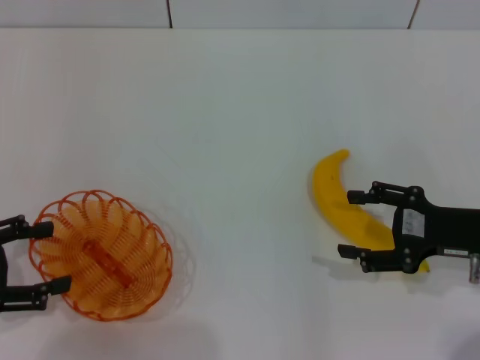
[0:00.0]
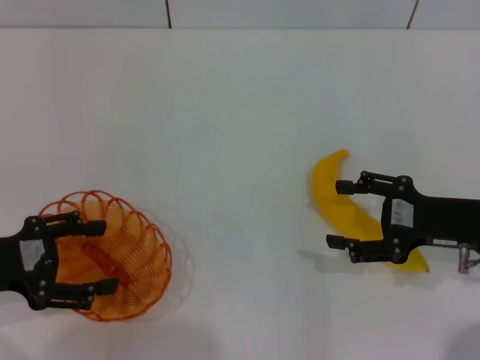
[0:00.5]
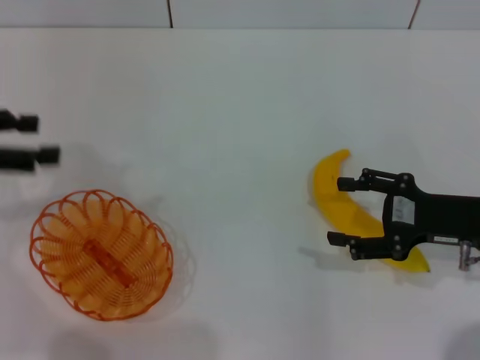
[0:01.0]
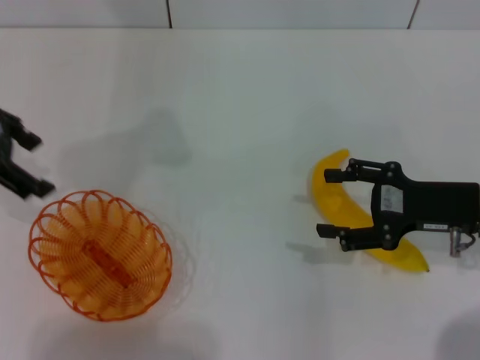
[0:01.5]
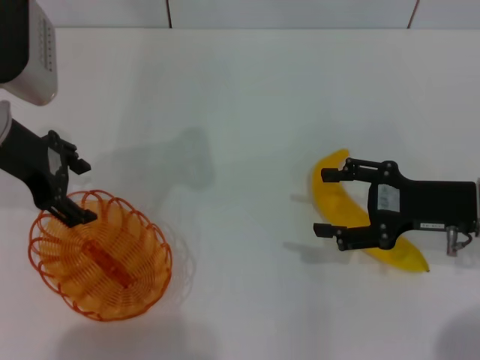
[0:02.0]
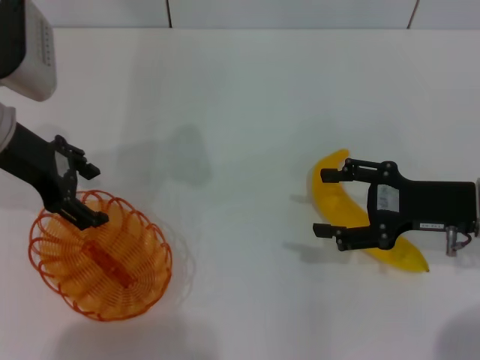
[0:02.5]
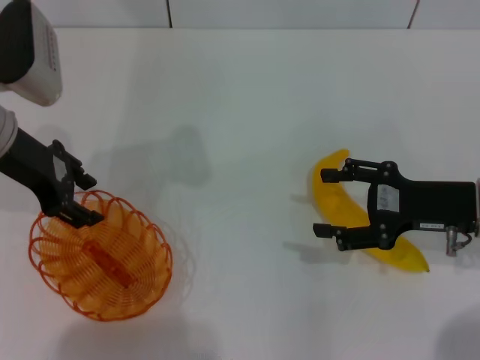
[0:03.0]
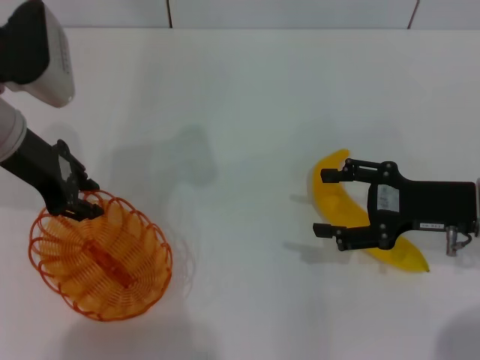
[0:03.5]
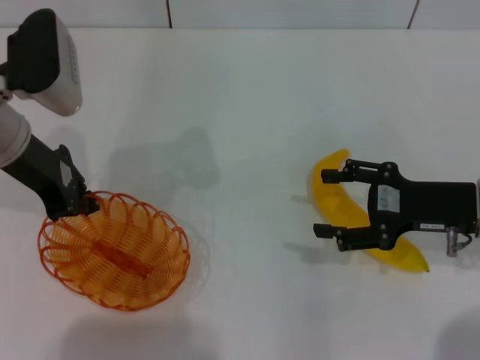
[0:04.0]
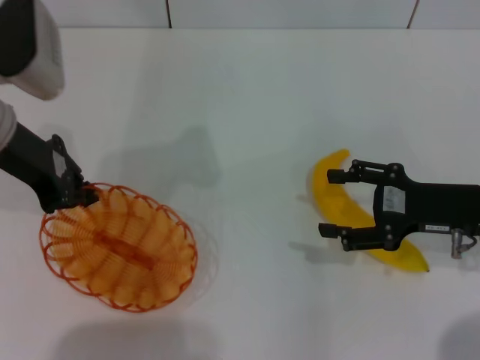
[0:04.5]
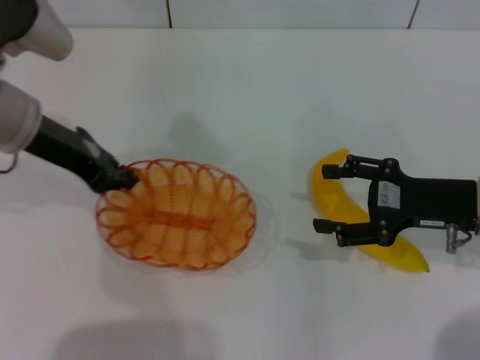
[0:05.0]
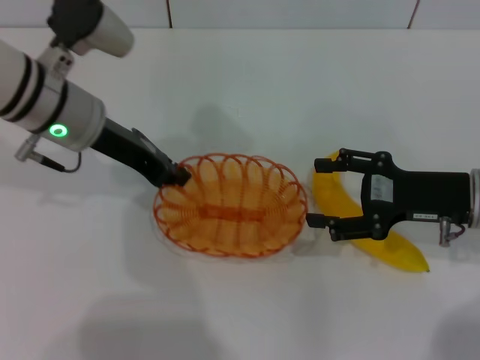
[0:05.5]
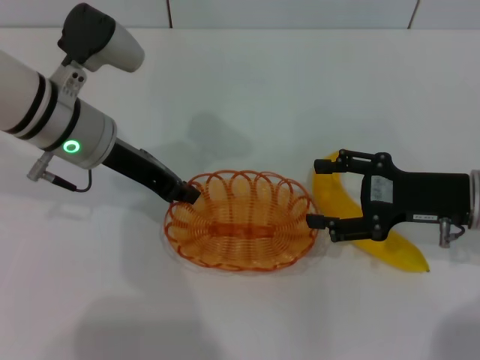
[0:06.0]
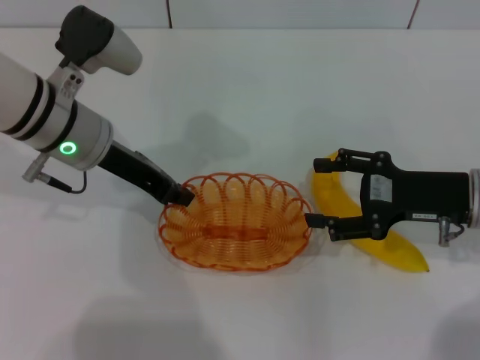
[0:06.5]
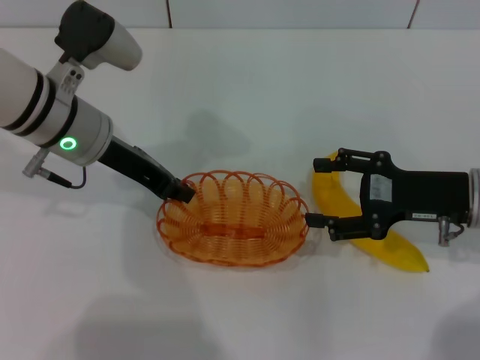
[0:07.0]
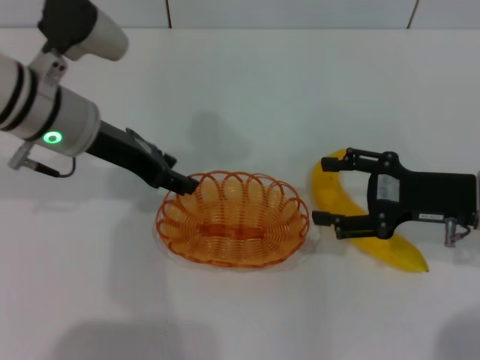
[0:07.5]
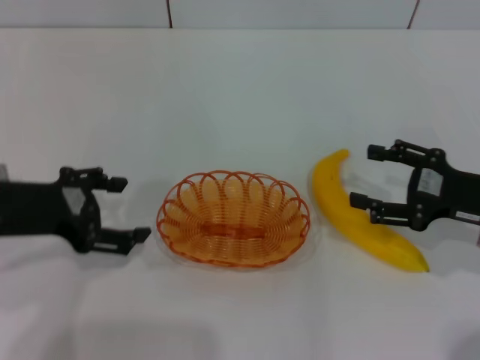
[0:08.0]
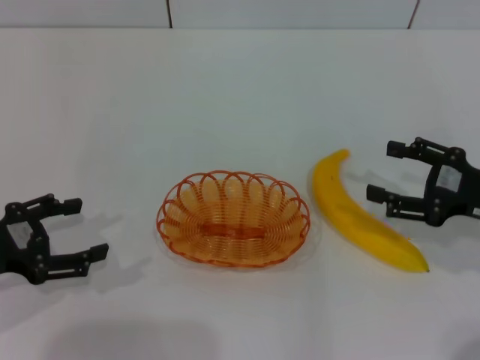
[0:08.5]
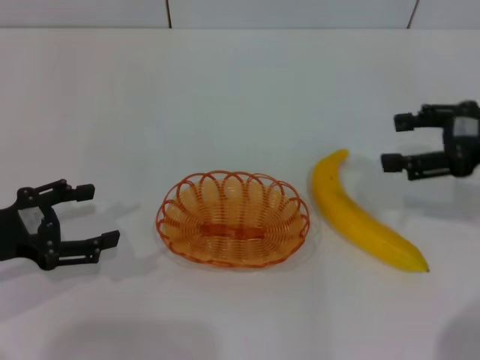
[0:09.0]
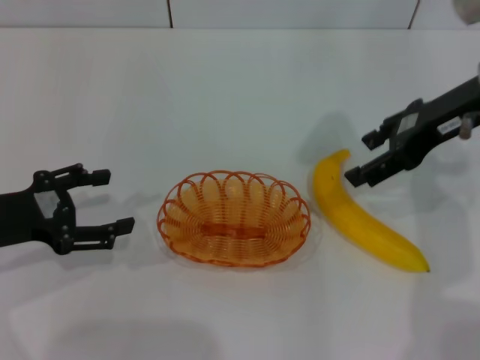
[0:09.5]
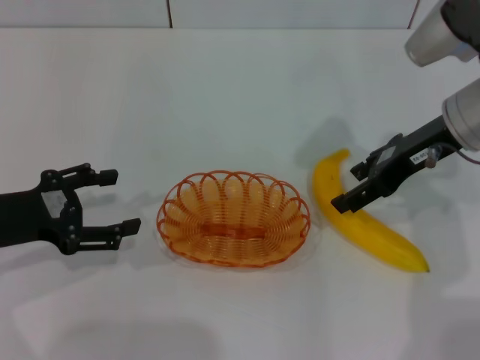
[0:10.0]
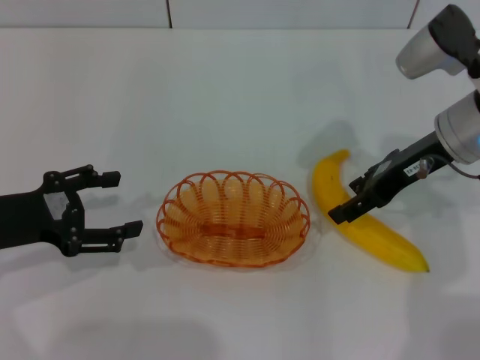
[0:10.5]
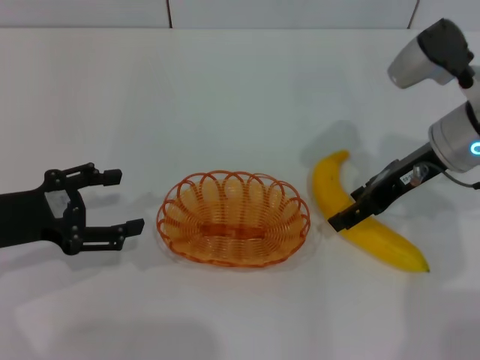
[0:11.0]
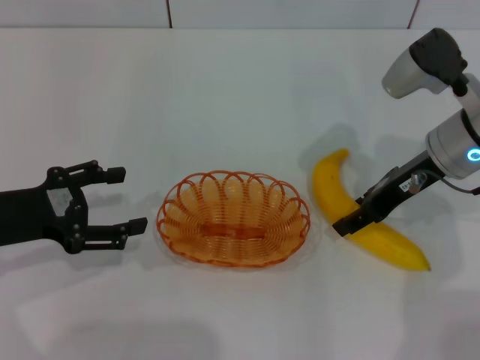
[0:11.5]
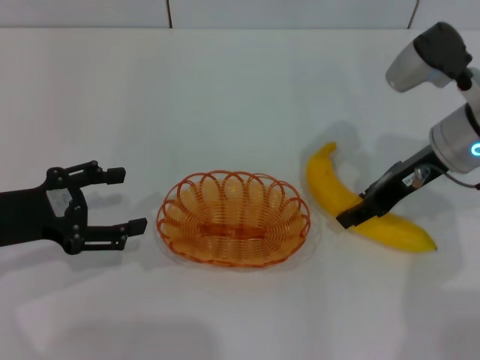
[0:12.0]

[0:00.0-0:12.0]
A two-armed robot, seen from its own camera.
Step, 0:00.0 to 0:05.0: Pick up the basket with the left gripper.
Step, 0:05.5 to 0:07.5: Place the basket in the center of view with the left gripper.
0:00.0 to 0:02.0: The left gripper shifts roughly 20 cm forward, to the right and upward.
0:02.0 to 0:04.0: The left gripper closes up.
0:04.0 to 0:06.0: The left gripper moves to the right, approximately 5 cm.
0:06.0 to 0:08.0: The left gripper shifts roughly 15 cm backward and to the left, and opens up.
0:08.0 to 0:10.0: The right gripper heads forward, upward and to the left, covering approximately 15 cm.
0:10.0 to 0:12.0: The right gripper closes its fingers.

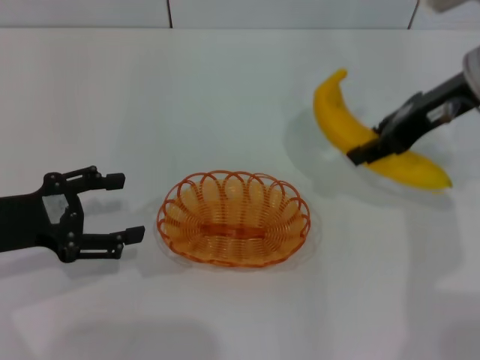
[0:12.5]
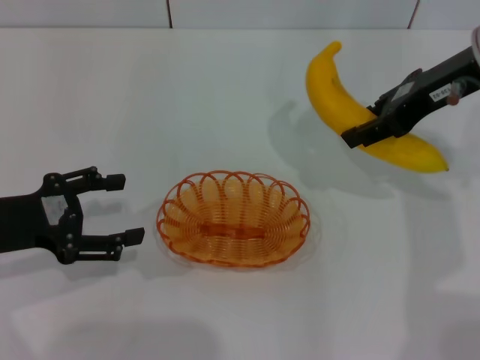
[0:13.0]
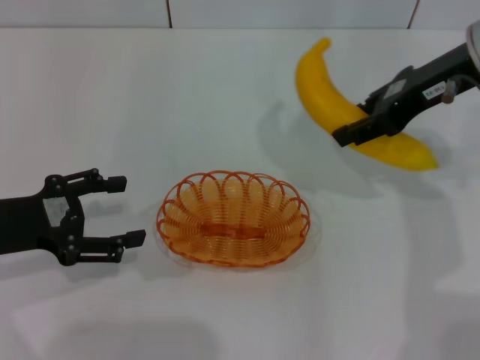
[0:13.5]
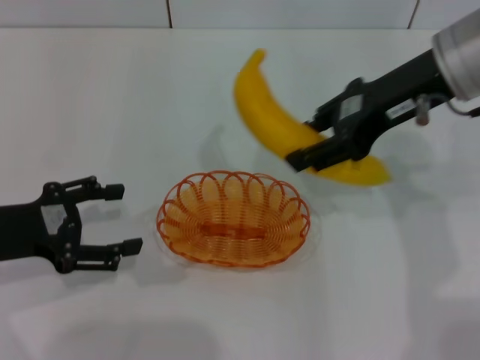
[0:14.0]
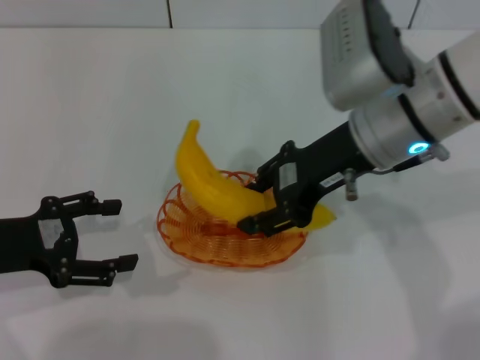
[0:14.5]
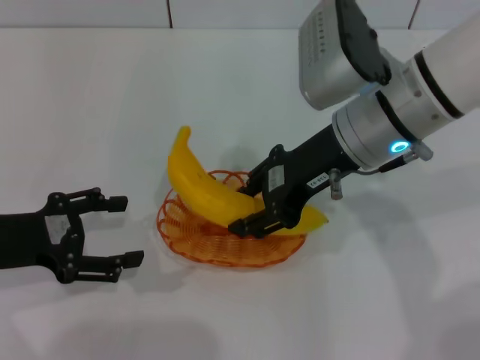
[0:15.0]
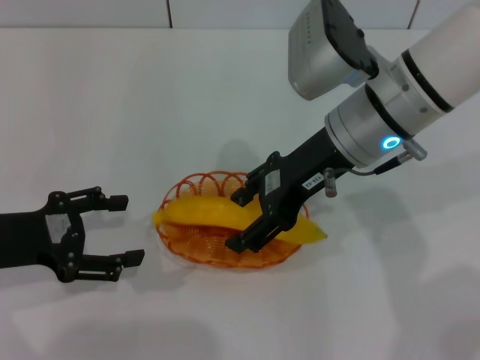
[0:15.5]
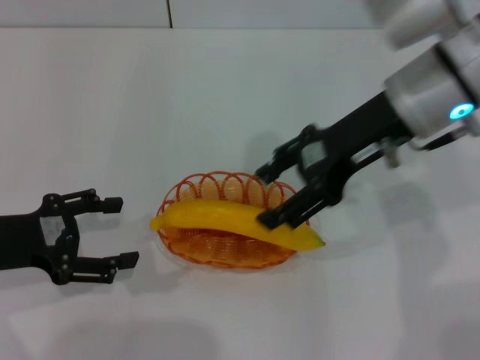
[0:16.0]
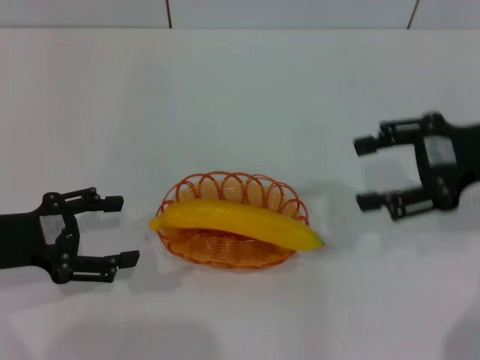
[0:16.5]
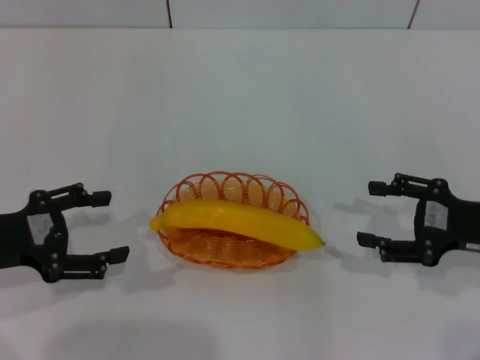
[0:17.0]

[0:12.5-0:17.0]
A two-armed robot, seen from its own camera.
Step, 0:12.5 to 0:15.5: Place the banana into the basket with the right gripper.
0:12.5 to 0:14.5: The right gripper moves to the left, about 10 cm.
0:14.5 to 0:17.0: The right gripper heads to the right, downward and backward, covering about 20 cm, and opens up.
